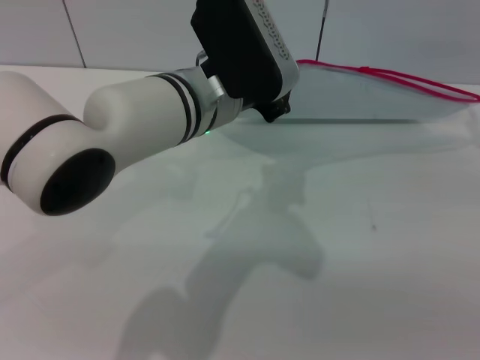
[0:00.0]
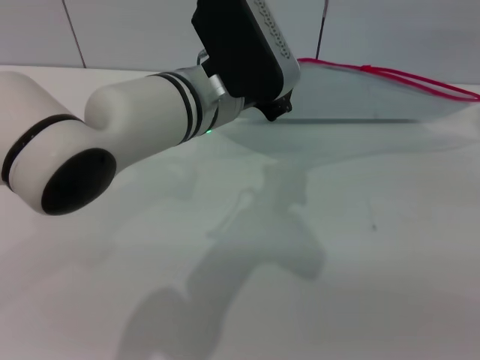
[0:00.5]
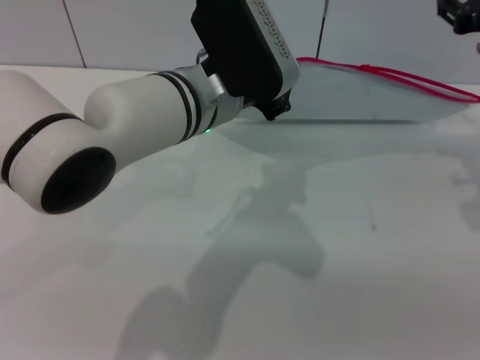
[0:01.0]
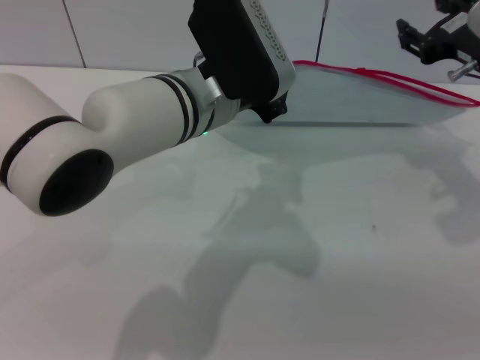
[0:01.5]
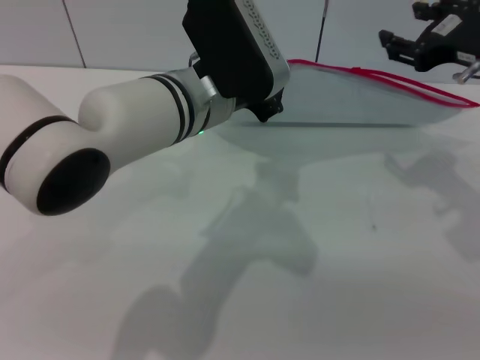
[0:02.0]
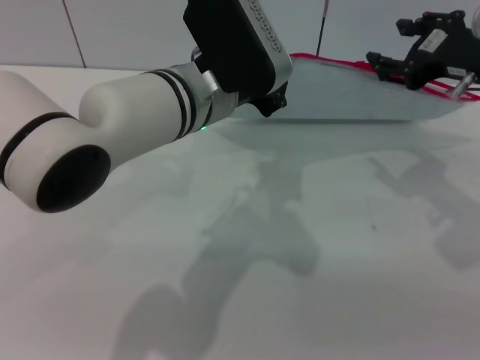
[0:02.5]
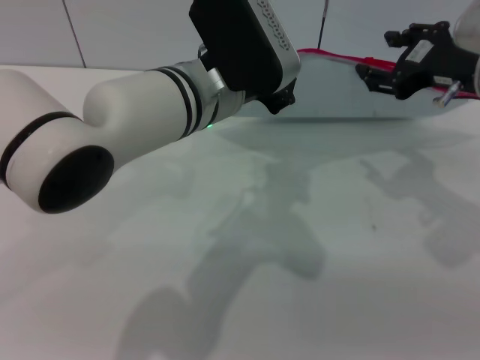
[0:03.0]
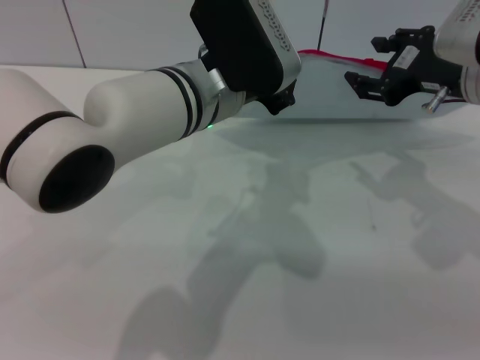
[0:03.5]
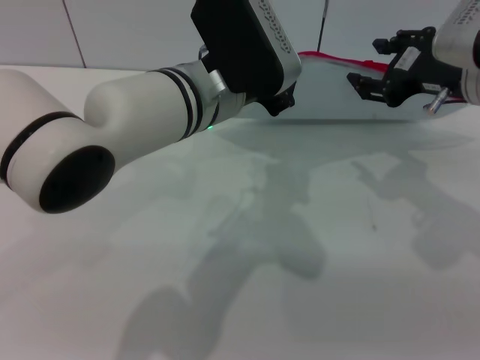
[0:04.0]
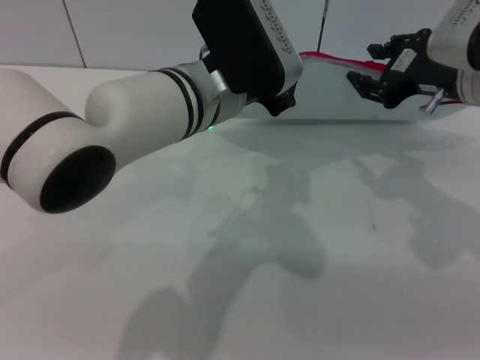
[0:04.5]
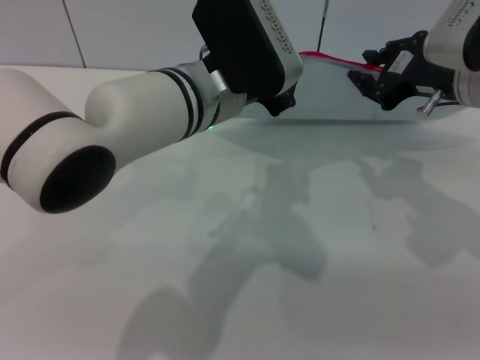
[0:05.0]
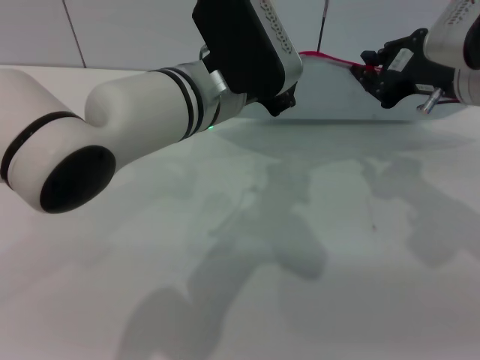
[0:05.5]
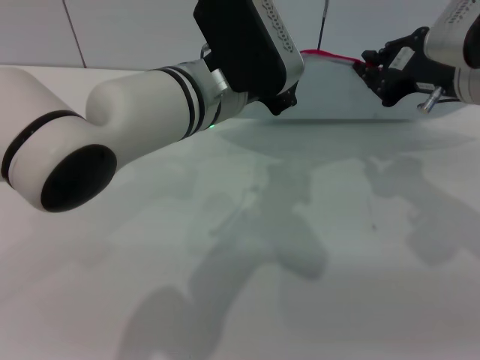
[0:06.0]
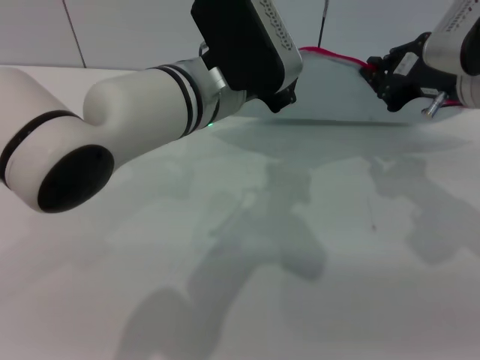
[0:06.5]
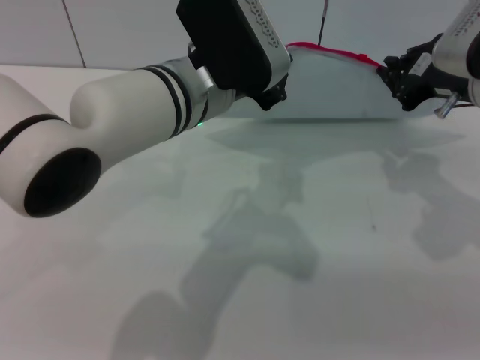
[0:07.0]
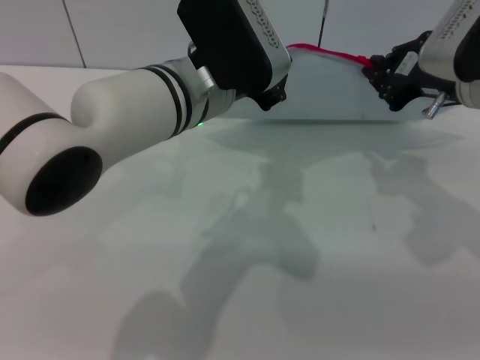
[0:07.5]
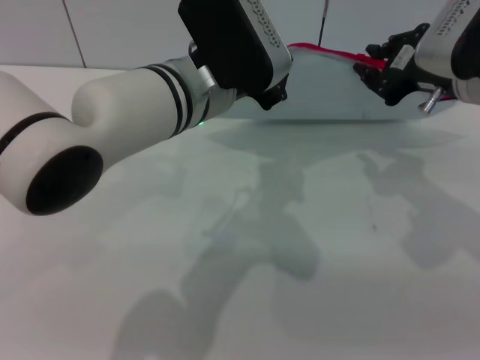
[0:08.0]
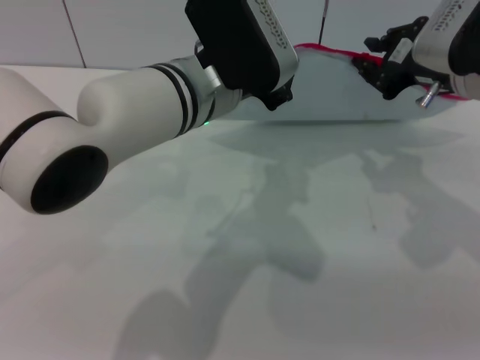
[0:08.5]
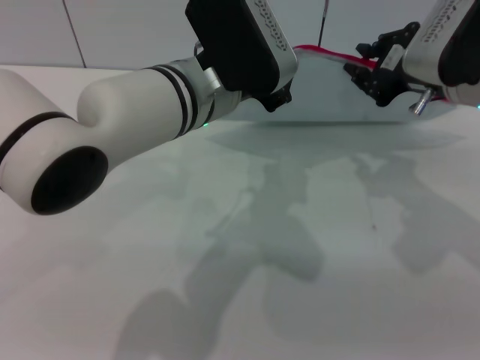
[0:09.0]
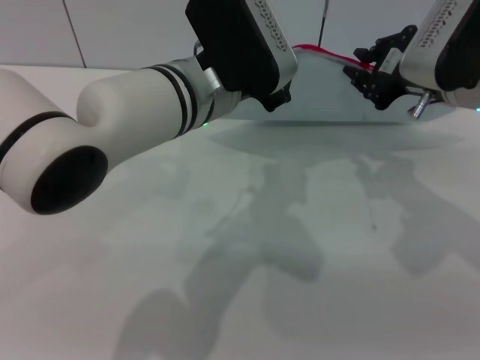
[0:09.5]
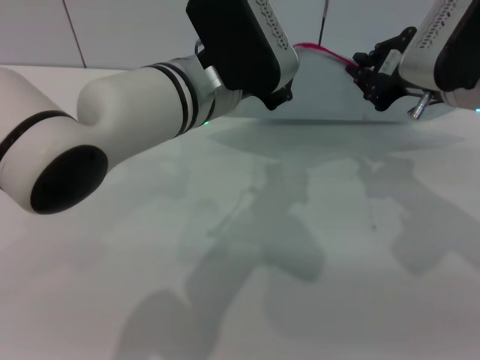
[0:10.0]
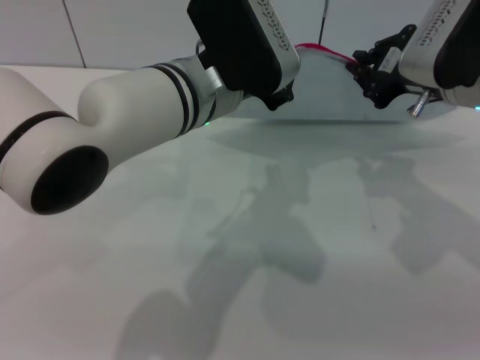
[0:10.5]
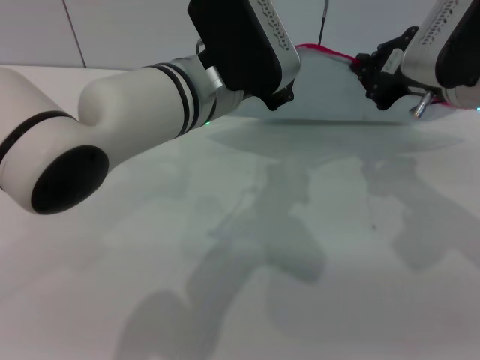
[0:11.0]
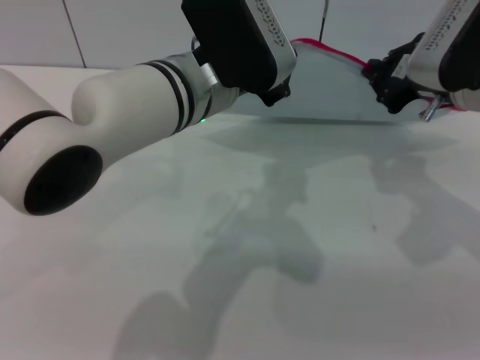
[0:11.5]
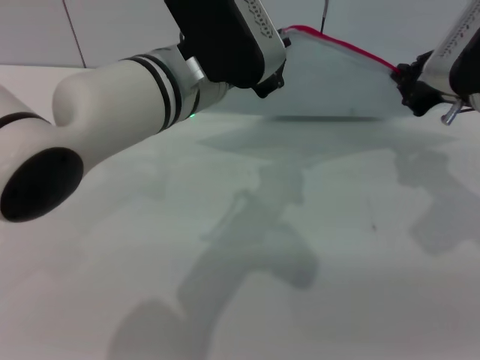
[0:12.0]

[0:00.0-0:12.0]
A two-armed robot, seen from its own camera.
0:00.0 to 0:02.0: The right gripper travels to the left by some 5 cm.
0:02.0 to 0:04.0: The grippers move only a little.
0:04.0 to 0:06.0: The right gripper closes its fingers.
0:06.0 to 0:08.0: The grippers make only small movements.
0:08.0 to 0:10.0: Both grippers stay put.
0:10.0 to 0:12.0: The grippers make only small movements.

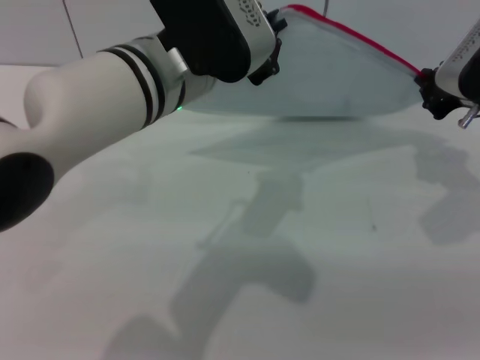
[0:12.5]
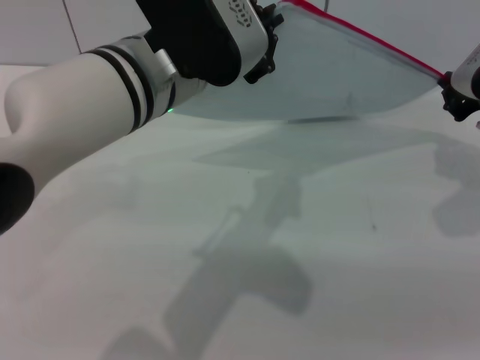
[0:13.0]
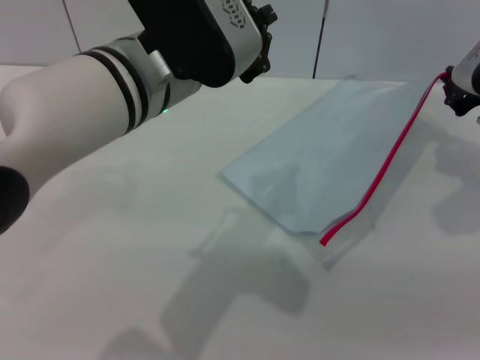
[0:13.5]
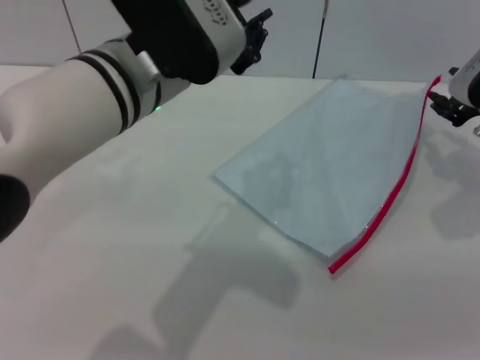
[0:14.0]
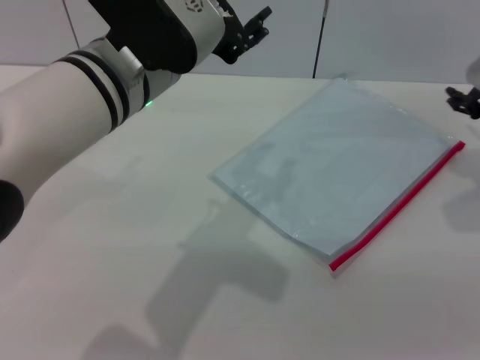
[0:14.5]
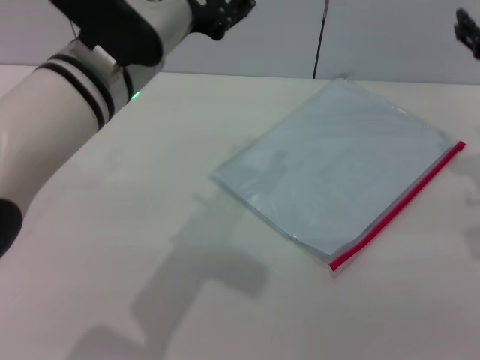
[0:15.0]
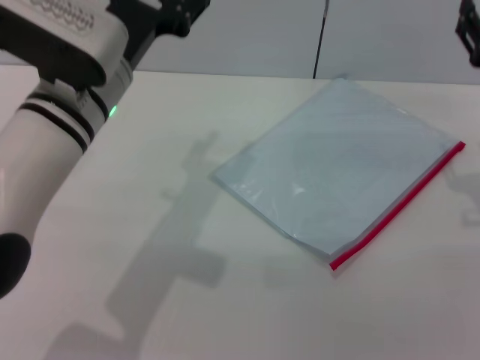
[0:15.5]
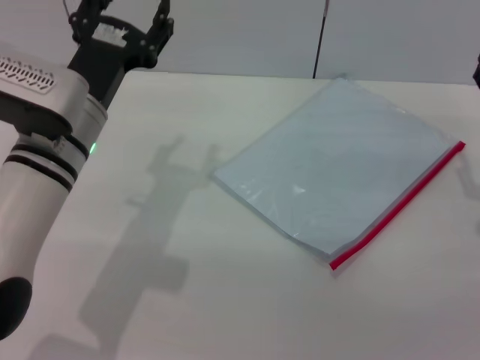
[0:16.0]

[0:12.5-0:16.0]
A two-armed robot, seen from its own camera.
Step, 0:14.0 to 0:14.5: Place the transparent plastic bag.
0:12.5 to 0:14.5: The left gripper opens up. The right gripper opens its fingers.
0:14.5 to 0:16.0: The right gripper moves backward and downward, approximately 10 cm, while the left gripper heads downward and to the left, covering approximately 10 cm.
